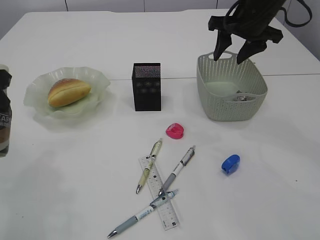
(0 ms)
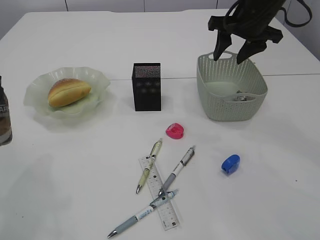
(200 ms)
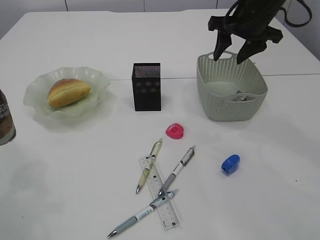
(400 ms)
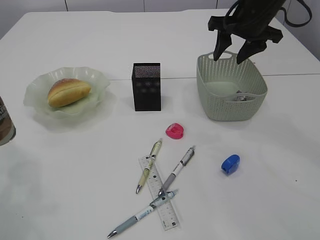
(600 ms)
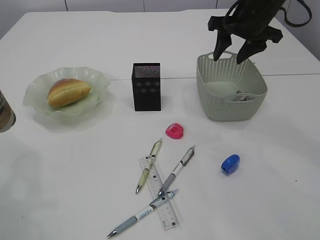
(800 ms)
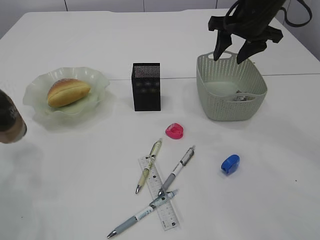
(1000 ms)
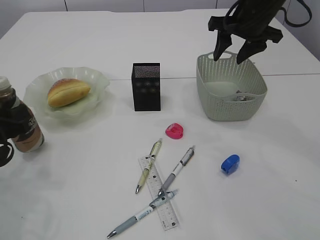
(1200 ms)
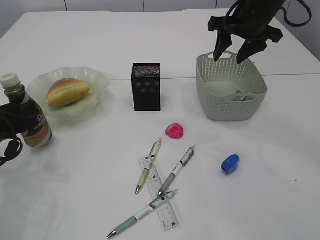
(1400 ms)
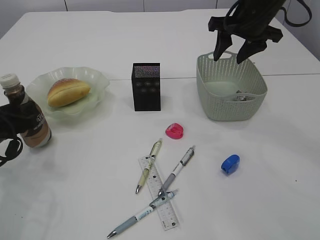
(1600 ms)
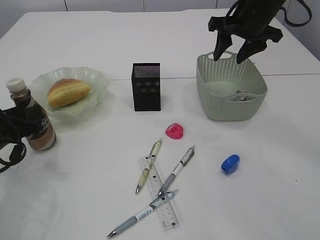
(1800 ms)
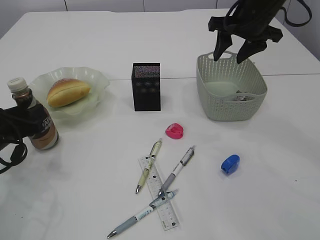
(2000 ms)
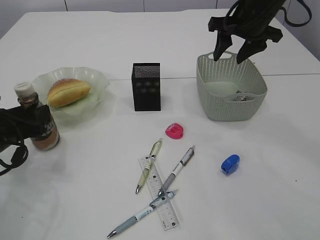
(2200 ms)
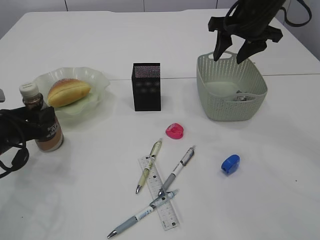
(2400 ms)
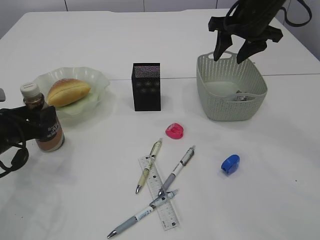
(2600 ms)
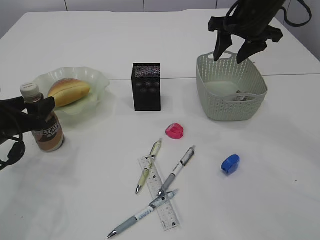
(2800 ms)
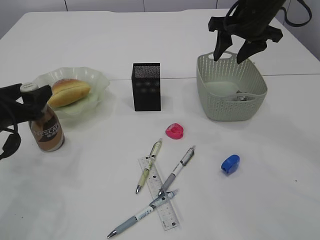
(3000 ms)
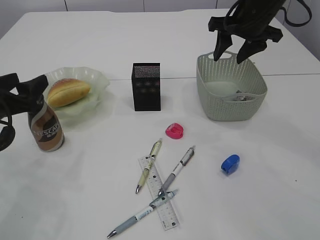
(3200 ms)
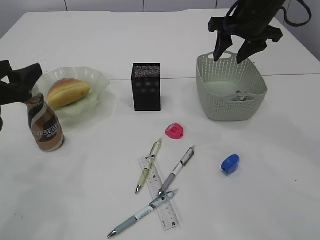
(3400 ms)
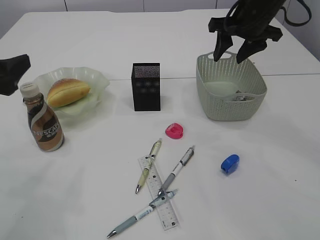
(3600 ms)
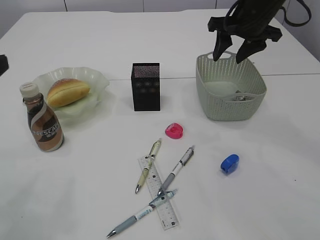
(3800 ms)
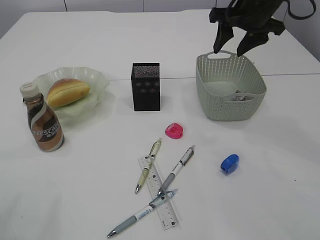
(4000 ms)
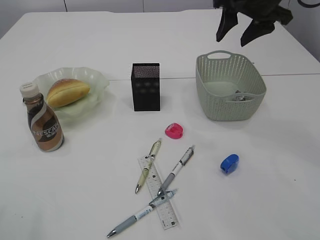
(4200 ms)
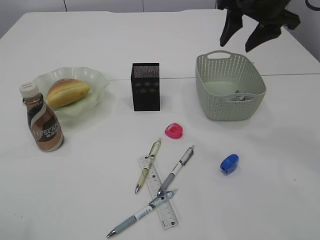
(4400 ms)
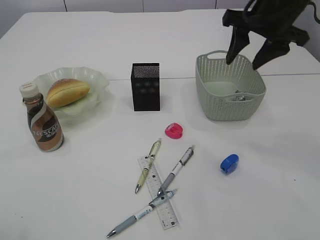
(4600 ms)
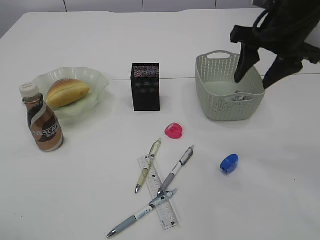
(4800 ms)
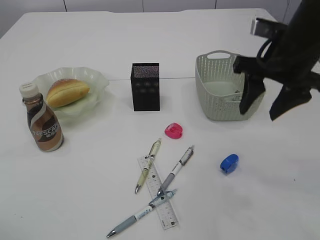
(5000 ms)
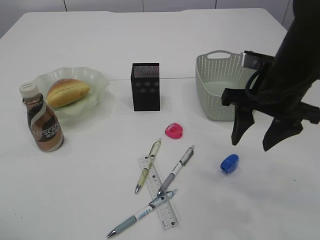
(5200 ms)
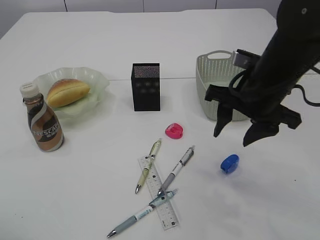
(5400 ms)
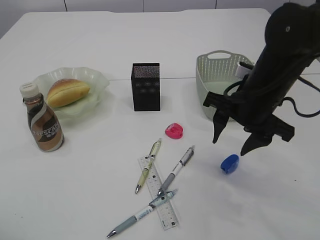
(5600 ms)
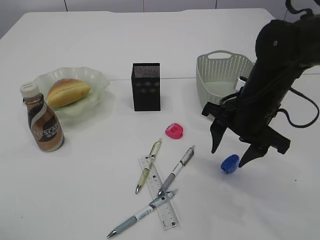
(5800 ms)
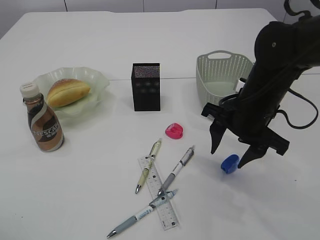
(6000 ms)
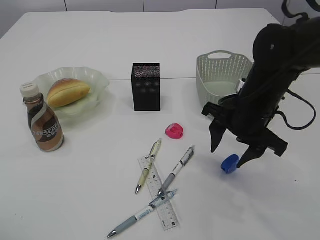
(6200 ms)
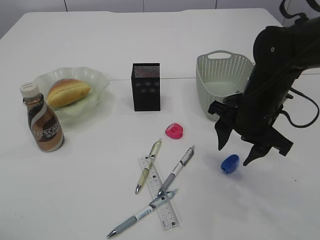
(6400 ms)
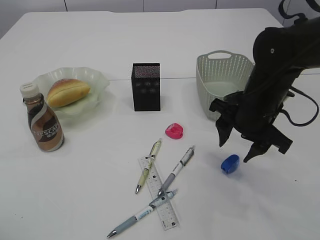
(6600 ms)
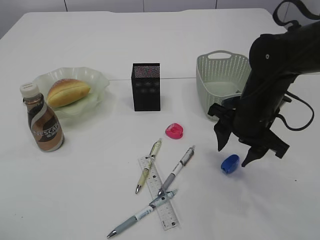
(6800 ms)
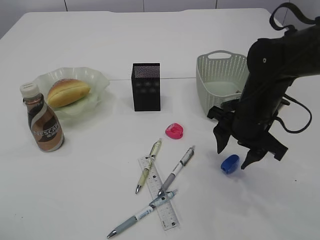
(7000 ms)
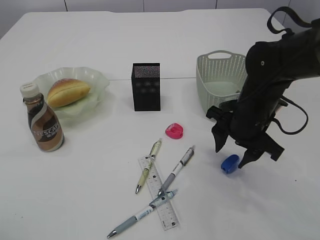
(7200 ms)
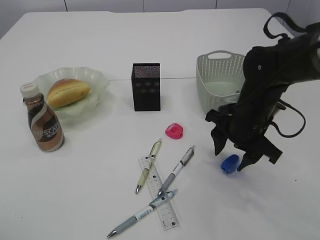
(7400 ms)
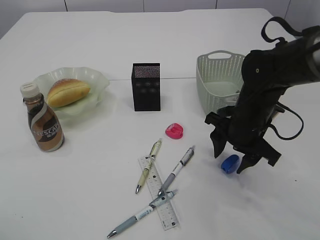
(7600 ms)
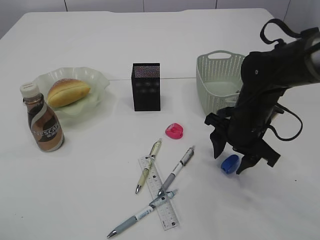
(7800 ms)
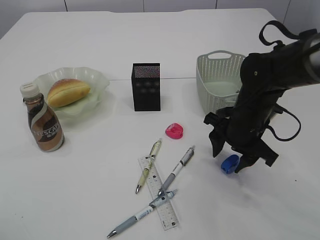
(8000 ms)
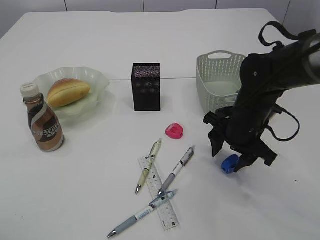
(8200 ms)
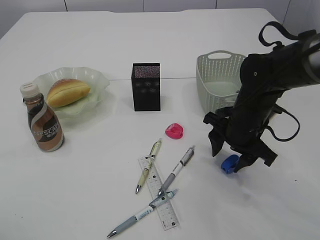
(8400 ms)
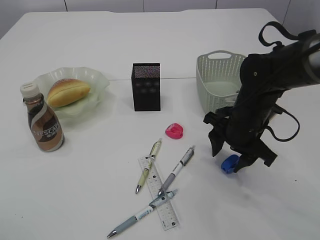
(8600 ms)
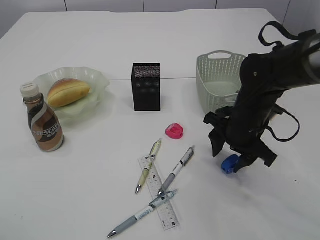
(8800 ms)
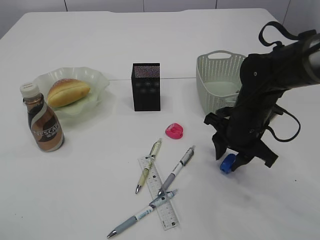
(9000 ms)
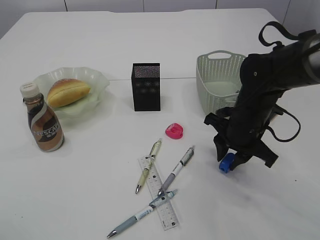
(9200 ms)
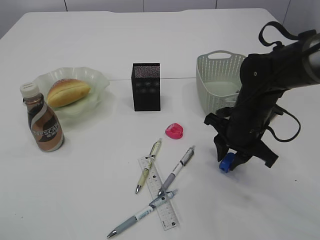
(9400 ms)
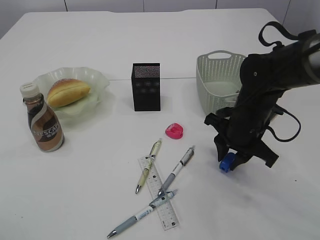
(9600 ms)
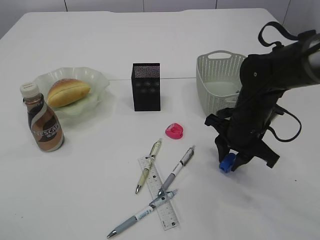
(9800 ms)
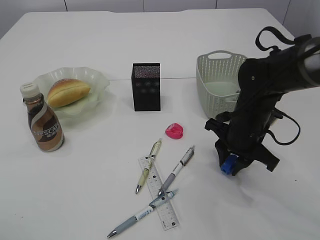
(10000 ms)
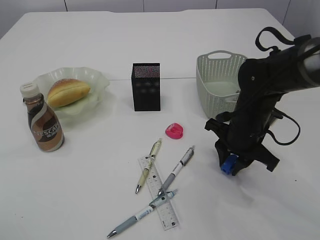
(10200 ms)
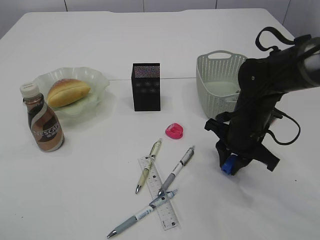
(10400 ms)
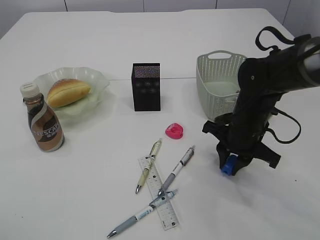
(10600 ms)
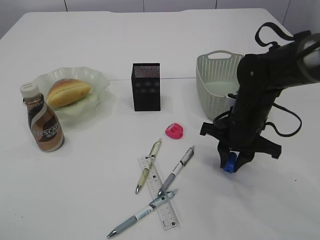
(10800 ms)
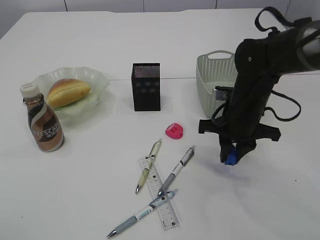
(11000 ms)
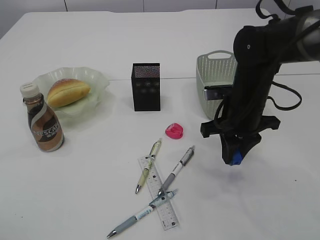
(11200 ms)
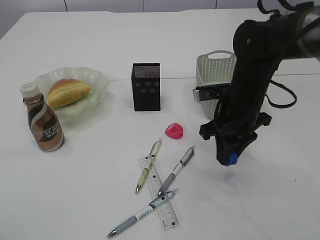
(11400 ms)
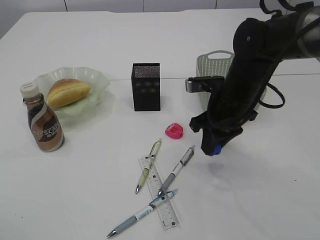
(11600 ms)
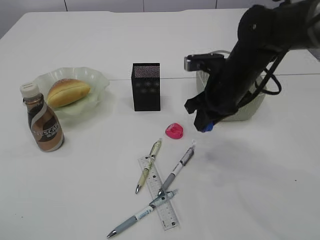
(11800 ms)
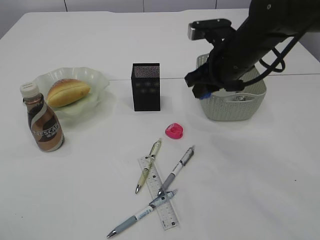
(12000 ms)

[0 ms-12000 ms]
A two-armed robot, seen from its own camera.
Step, 0 ms to 3400 ms: Place the bottle.
Step, 3600 ms to 11400 ms: Pick up the blue pencil sharpener.
0 ms to 1600 ms: The left gripper moves downward, about 15 cm.
1600 ms to 3000 ms: The left gripper opens its fingers.
3000 ms to 4400 ms: The left gripper moves upward and backward, roughly 20 cm; the right gripper moves roughly 5 cm.
4400 ms to 6000 ms: The right gripper is displaced downward and backward by about 20 cm.
6000 ms to 7600 ms: The grippers make only small movements.
7600 ms to 9000 ms: Neither gripper changes place.
9000 ms to 10400 ms: Neither gripper changes place.
10400 ms to 12000 ms: The right gripper is displaced upward by roughly 10 cm.

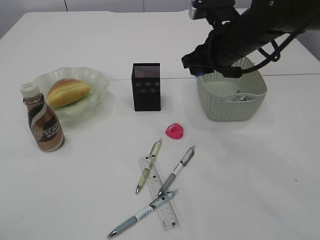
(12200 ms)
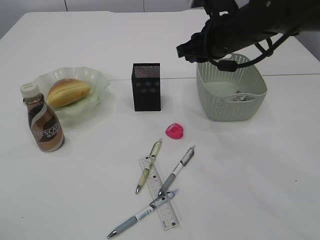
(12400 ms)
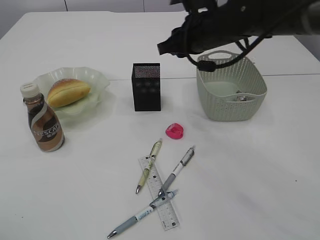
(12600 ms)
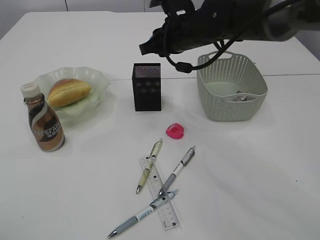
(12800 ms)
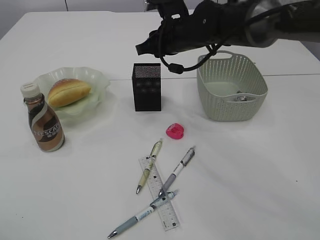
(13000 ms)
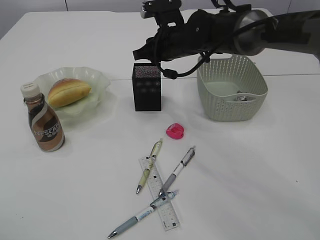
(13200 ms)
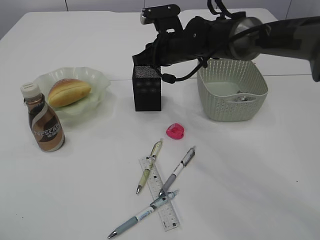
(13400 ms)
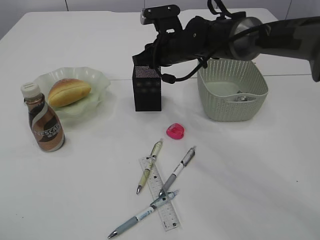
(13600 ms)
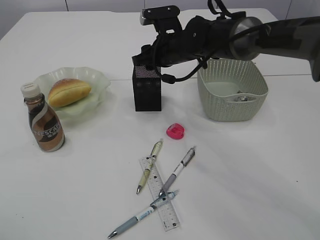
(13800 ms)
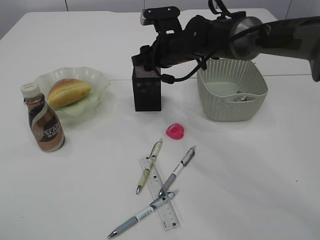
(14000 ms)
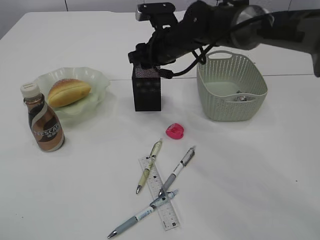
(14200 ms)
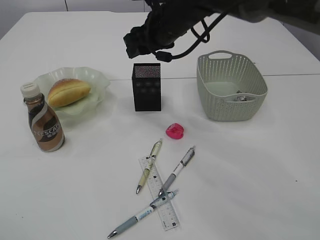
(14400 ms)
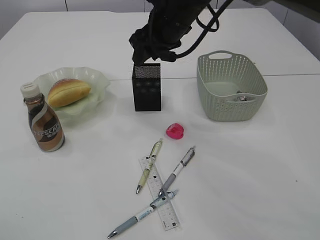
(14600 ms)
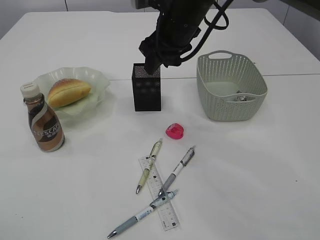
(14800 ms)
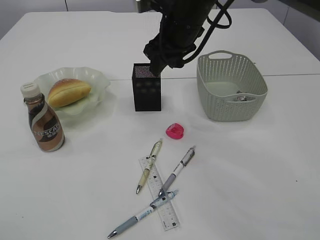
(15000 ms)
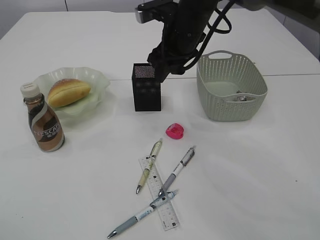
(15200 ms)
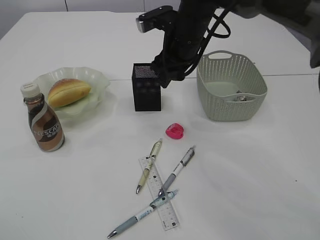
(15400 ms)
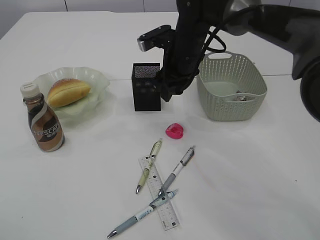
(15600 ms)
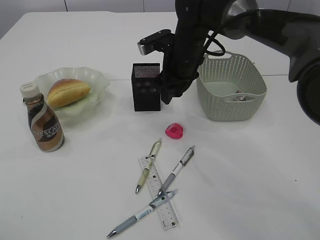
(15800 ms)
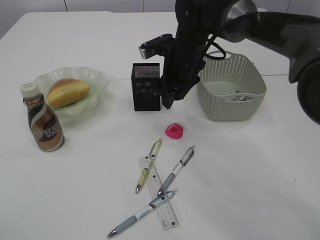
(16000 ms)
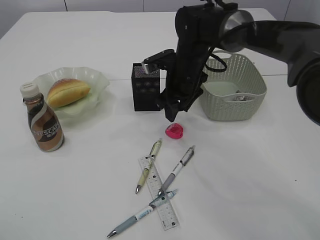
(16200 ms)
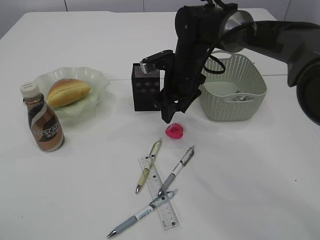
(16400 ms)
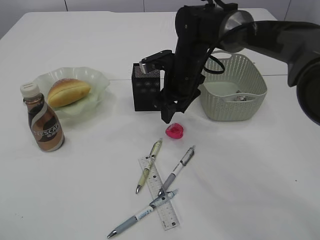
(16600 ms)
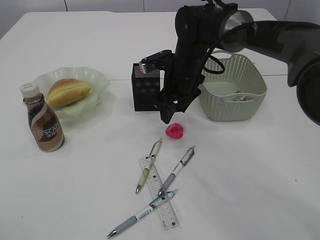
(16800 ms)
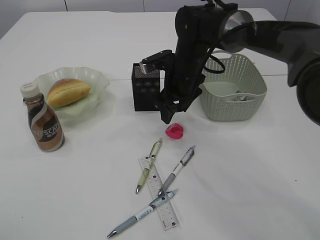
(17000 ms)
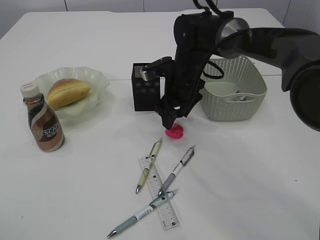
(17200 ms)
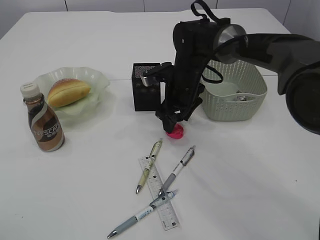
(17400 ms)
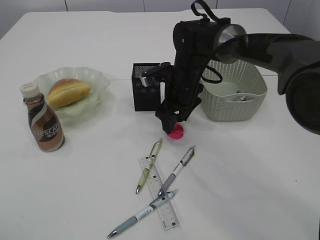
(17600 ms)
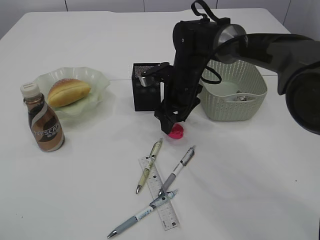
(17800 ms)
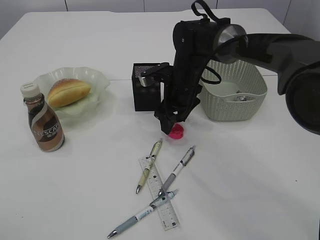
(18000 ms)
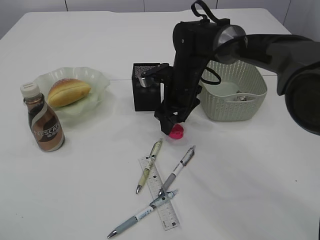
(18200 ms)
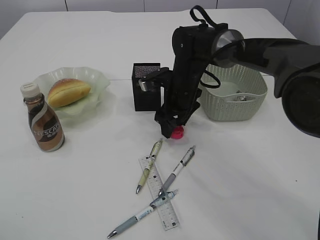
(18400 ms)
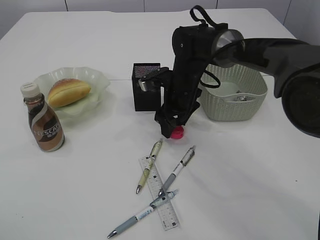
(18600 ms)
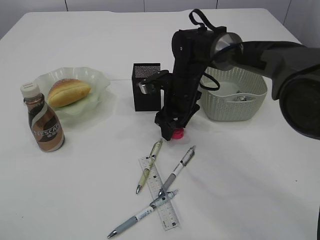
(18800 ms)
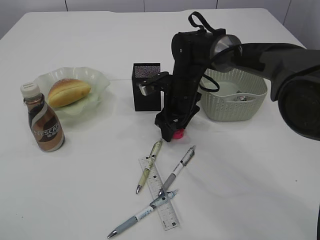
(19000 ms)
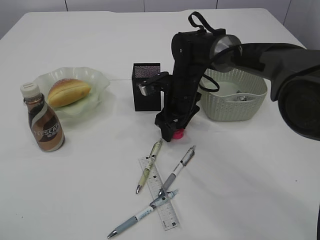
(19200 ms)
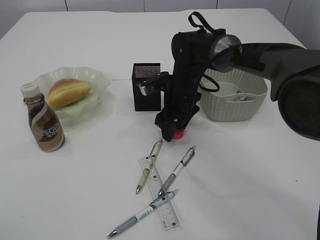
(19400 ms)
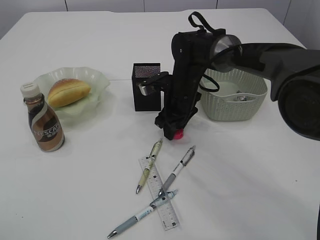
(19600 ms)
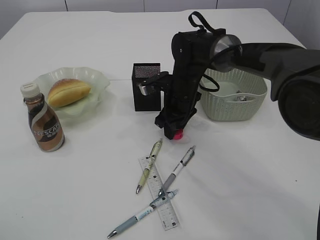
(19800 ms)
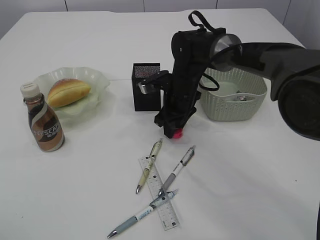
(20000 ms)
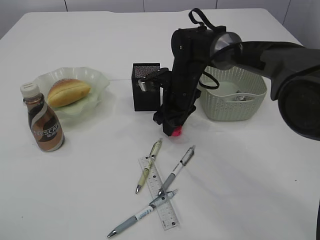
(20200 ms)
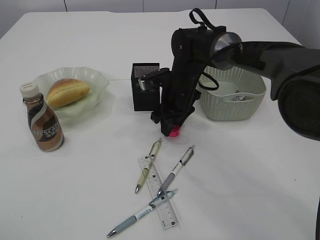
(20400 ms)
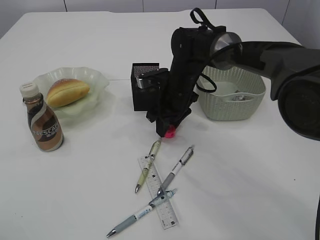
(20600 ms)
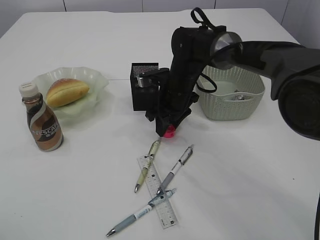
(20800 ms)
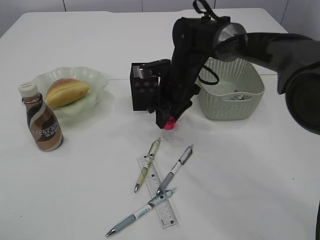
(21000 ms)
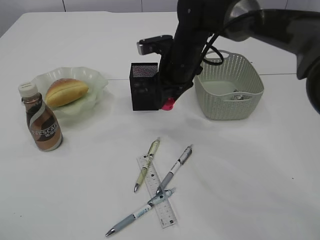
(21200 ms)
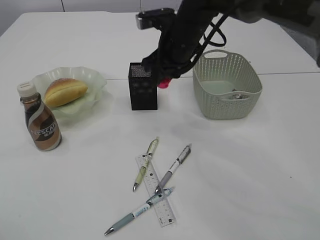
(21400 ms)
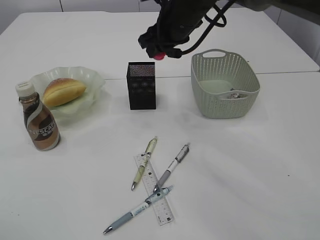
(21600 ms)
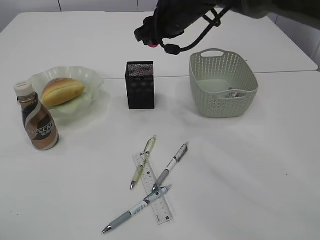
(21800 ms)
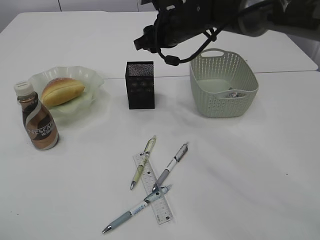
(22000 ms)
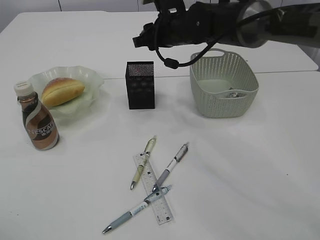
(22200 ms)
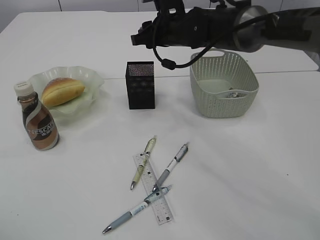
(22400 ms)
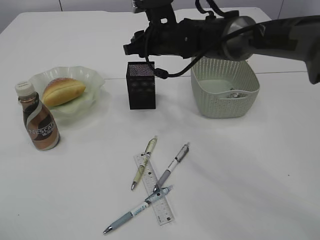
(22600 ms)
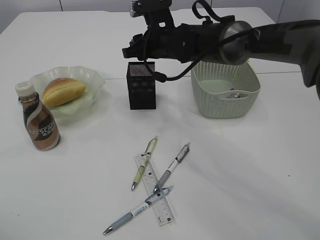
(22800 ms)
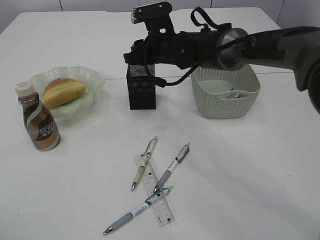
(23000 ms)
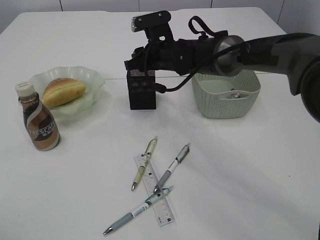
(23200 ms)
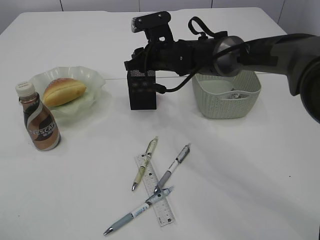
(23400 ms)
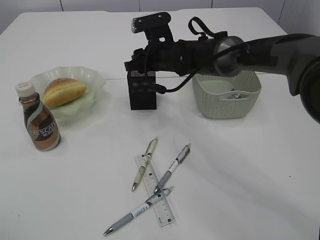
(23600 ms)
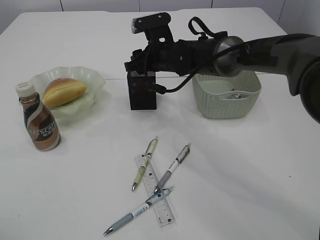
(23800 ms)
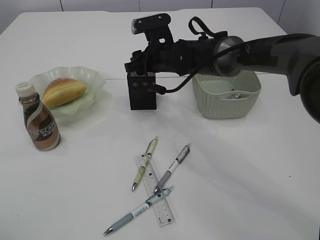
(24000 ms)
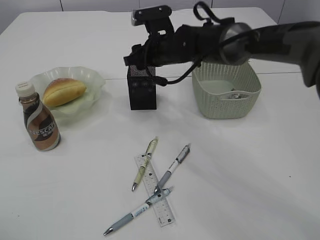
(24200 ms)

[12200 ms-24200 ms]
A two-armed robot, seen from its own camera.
Step, 12200 ms to 14400 ms: Place the blue pencil sharpener into the pen holder.
Step, 14600 ms to 21000 ms: Pick up the red pencil sharpener.
12200 ms to 13800 ms: The right gripper shifts approximately 10 cm forward and to the left, and opens.
13800 ms to 15200 ms: The right gripper heads upward, covering roughly 5 cm.
15200 ms to 16600 ms: The right gripper moves downward, some 10 cm.
16600 ms to 18200 ms: The grippers stay close to where they were, moving slightly.
18200 ms to 19800 ms: The right gripper closes up.
19800 ms to 21200 ms: The right gripper travels upward by about 5 cm.
21200 ms to 22600 ms: The right gripper moves some 10 cm upward and comes back.
22600 ms to 24200 ms: The grippers move only a little.
